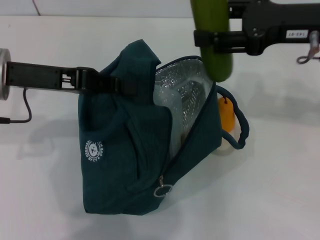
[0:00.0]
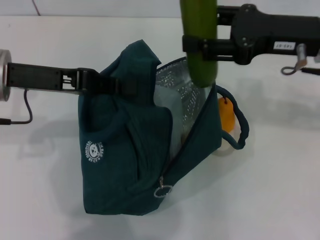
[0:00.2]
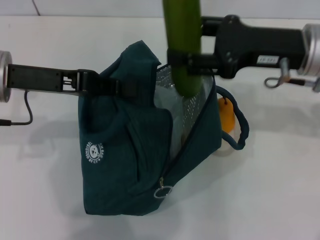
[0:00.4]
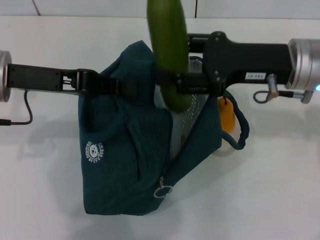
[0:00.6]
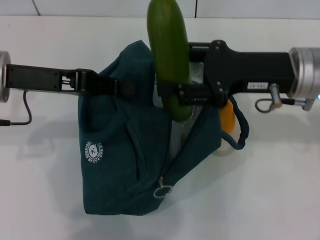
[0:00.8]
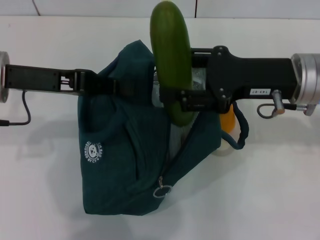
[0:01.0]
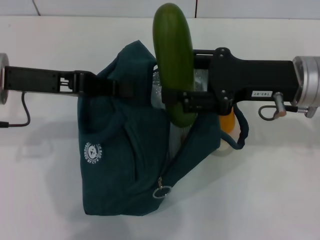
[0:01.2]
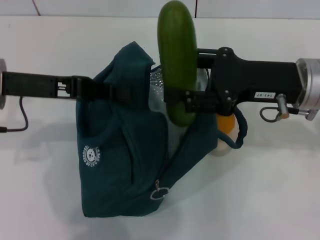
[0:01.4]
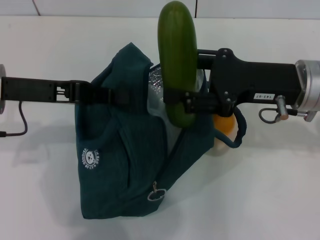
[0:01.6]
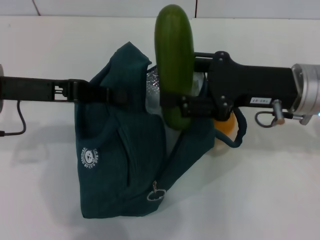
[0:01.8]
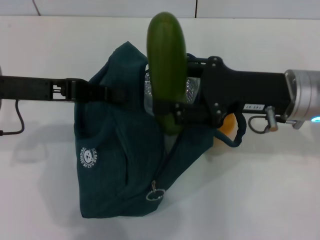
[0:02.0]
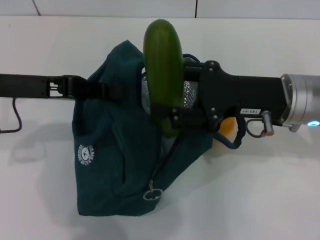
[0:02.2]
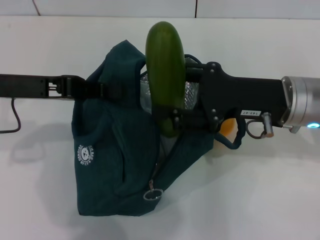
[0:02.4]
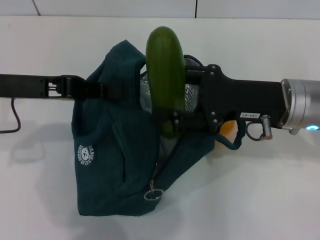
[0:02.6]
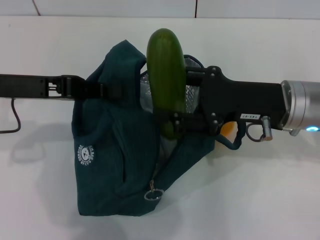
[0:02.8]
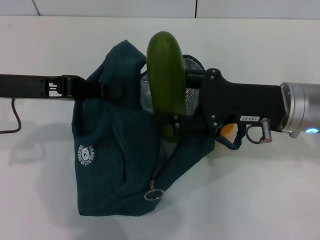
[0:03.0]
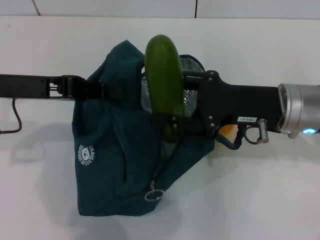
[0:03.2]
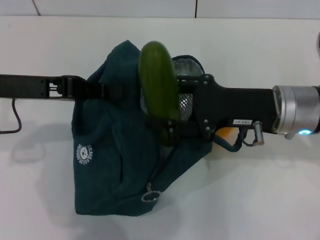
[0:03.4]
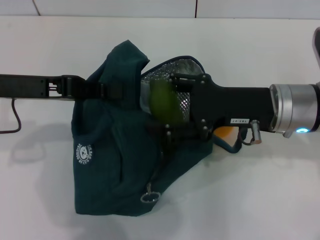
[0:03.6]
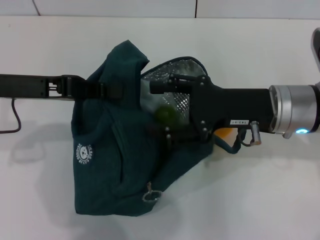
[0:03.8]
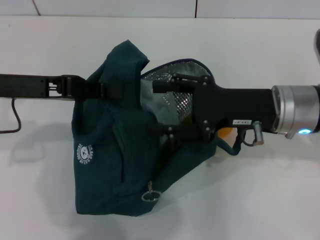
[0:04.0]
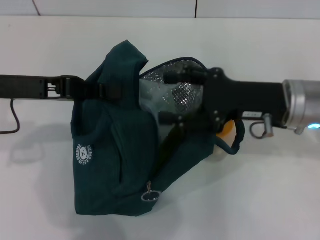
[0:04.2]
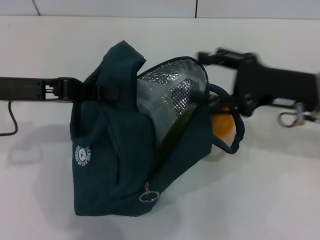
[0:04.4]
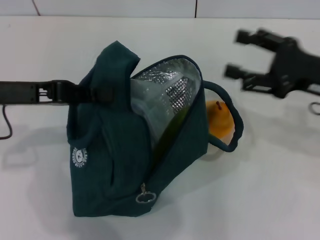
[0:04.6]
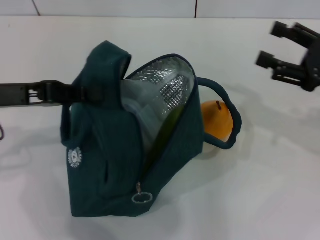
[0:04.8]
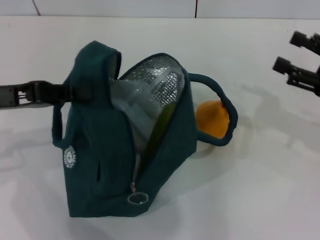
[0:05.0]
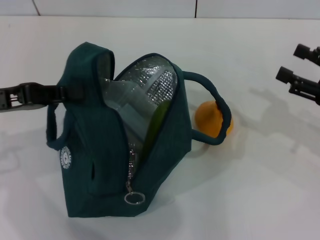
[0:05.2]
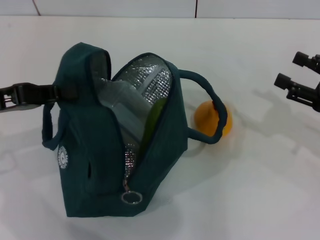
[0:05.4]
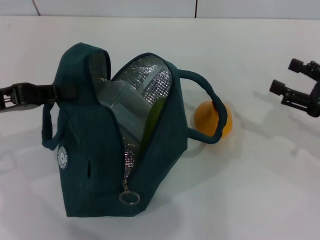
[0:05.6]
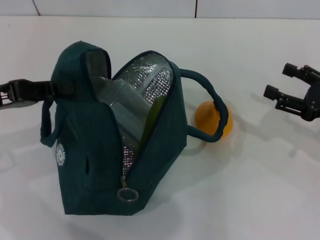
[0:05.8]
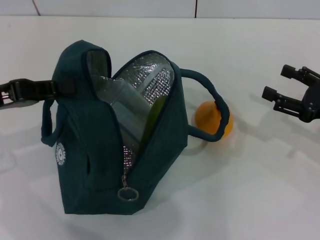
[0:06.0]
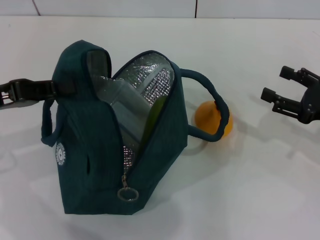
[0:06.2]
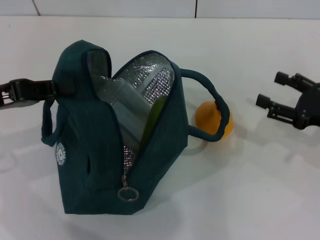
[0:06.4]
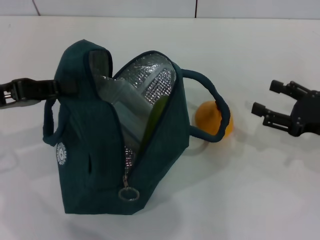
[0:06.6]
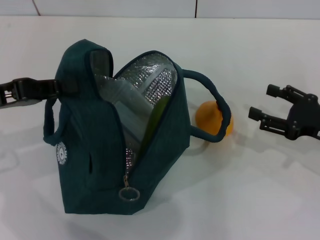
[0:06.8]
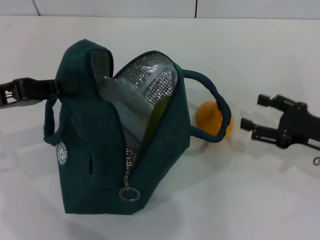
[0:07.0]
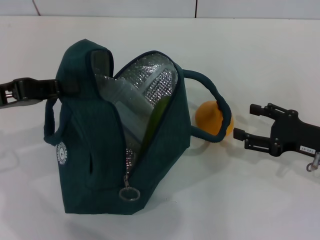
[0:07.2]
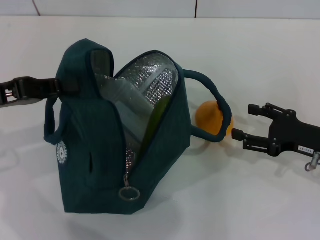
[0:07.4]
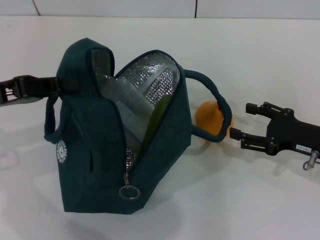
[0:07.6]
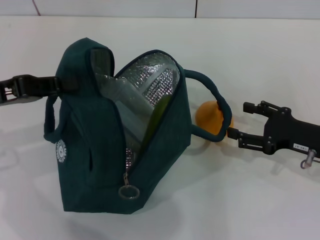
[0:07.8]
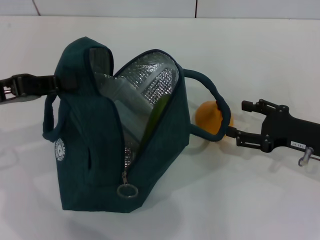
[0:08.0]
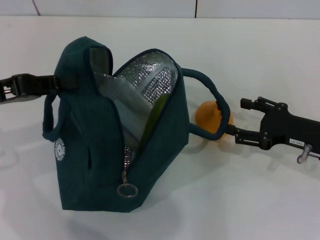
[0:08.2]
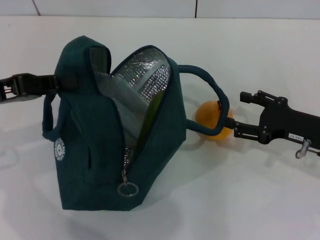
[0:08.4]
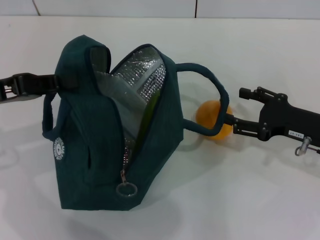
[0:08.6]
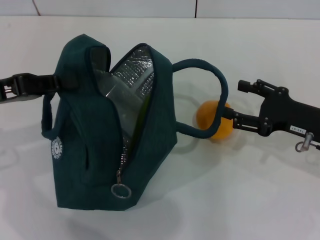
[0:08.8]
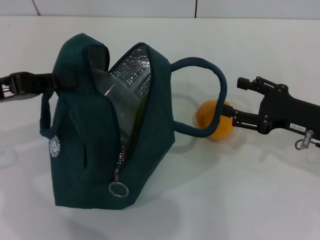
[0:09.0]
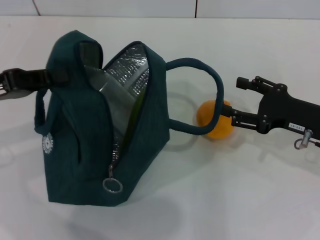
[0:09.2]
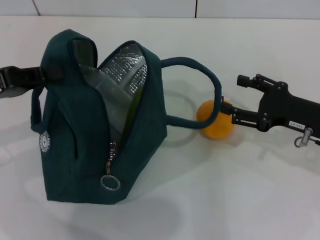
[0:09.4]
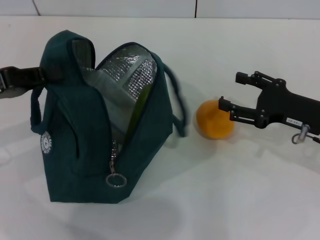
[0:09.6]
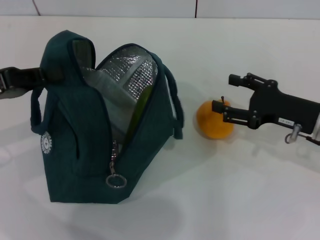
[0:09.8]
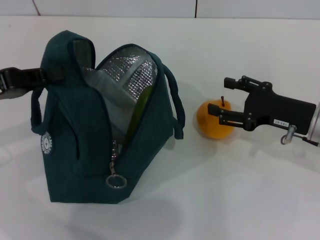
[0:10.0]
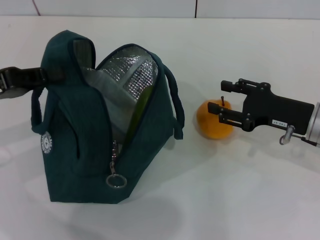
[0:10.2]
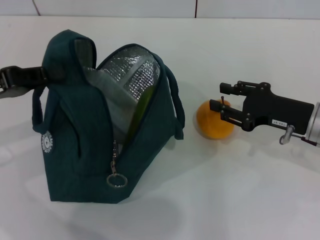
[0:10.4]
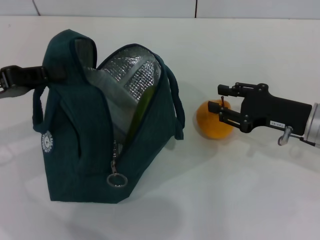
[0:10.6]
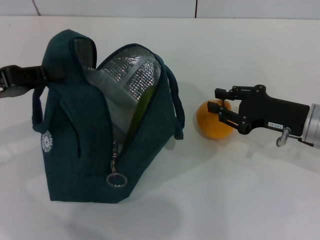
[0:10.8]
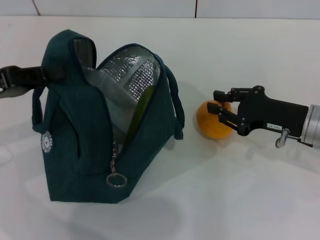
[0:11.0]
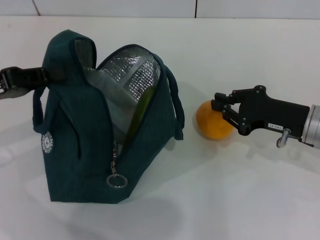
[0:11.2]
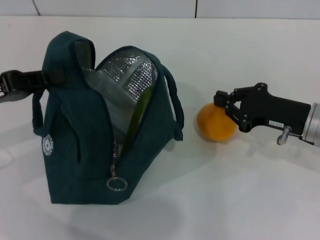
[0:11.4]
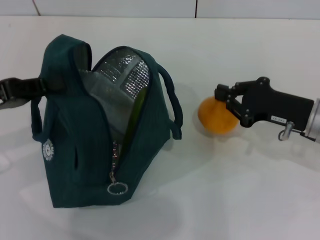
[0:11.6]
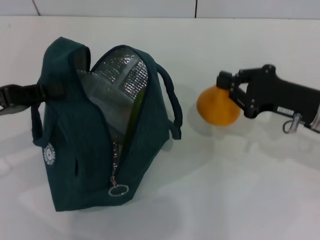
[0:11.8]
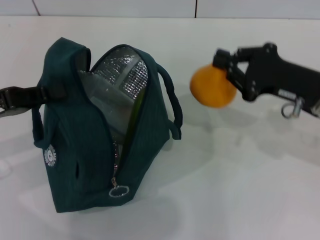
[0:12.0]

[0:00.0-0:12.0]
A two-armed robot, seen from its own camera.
Step, 0:00.0 to 0:04.4: Put the cucumber into the lunch bag with your right hand.
Step, 0:04.6 to 0:11.0: Grab the pear with your right hand.
0:00.0 to 0:01.6: The right gripper is displaced downward by approximately 5 cm.
0:01.6 to 0:04.4: The grippers stay close to where they were, moving slightly.
0:04.4 to 0:06.0: The right gripper travels to the right and downward by approximately 10 cm. The left gripper heads to the left, covering some 5 cm.
0:06.0 to 0:09.0: The grippers stay close to where they were, moving slightly.
0:09.0 to 0:10.4: The grippers make only small movements.
0:10.4 to 0:12.0: The right gripper travels upward by some 5 cm, and closes.

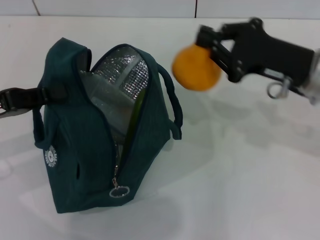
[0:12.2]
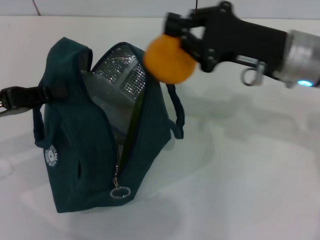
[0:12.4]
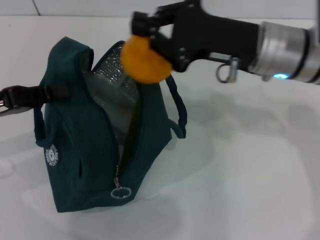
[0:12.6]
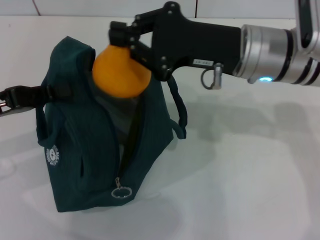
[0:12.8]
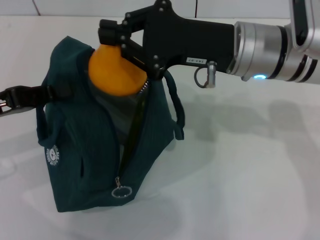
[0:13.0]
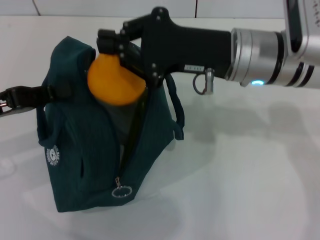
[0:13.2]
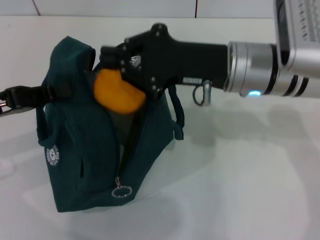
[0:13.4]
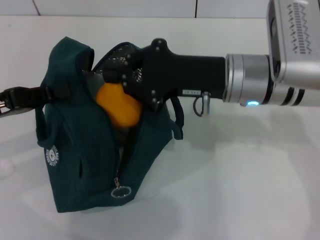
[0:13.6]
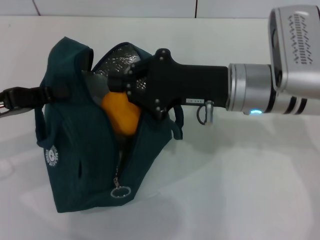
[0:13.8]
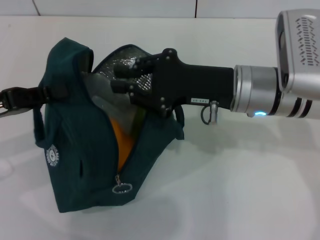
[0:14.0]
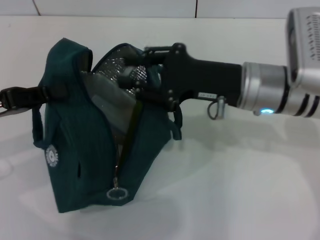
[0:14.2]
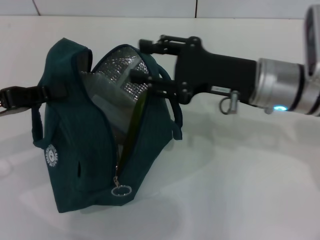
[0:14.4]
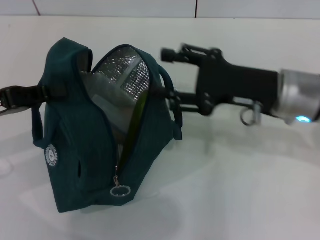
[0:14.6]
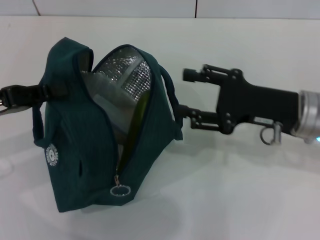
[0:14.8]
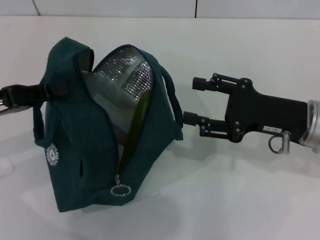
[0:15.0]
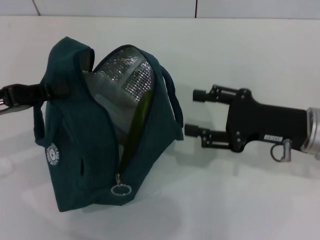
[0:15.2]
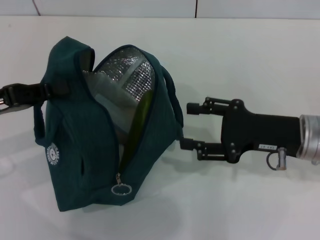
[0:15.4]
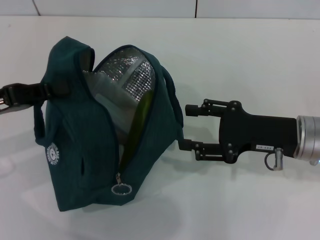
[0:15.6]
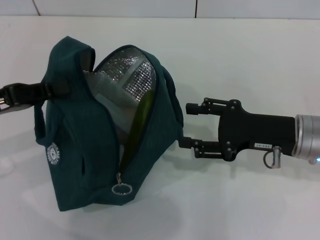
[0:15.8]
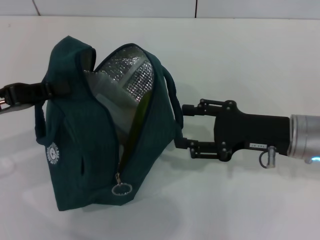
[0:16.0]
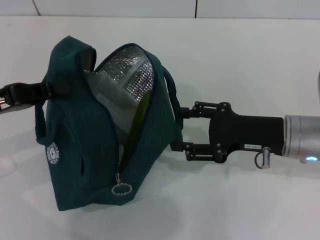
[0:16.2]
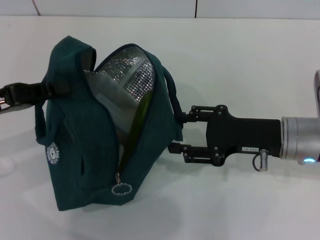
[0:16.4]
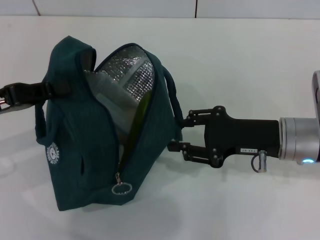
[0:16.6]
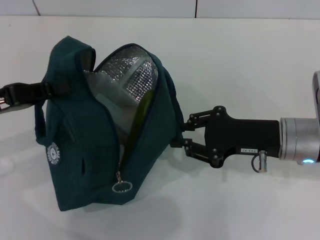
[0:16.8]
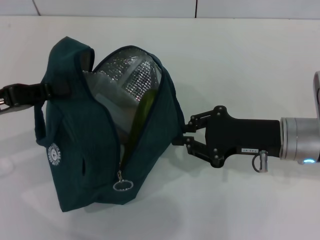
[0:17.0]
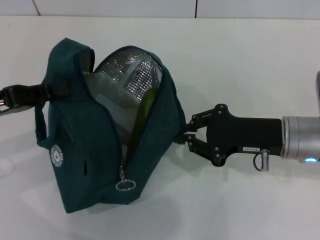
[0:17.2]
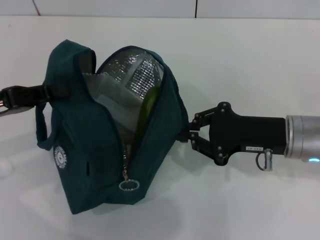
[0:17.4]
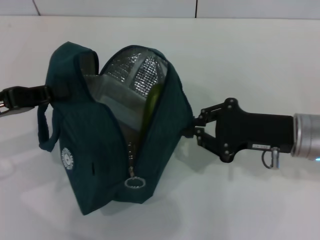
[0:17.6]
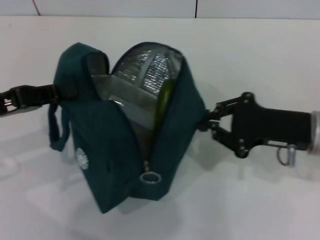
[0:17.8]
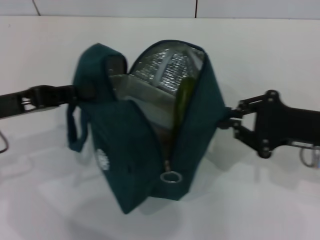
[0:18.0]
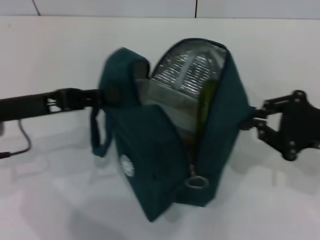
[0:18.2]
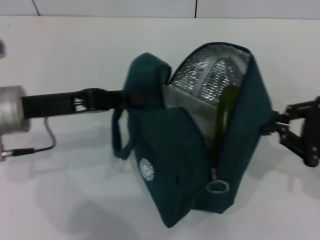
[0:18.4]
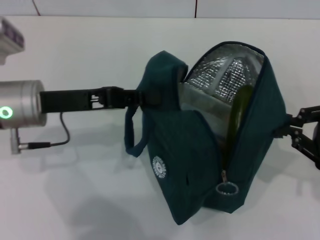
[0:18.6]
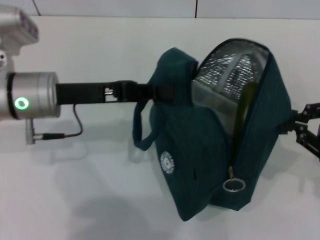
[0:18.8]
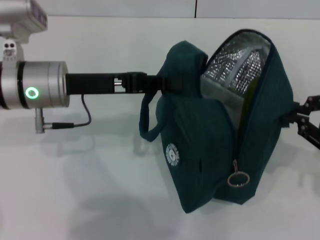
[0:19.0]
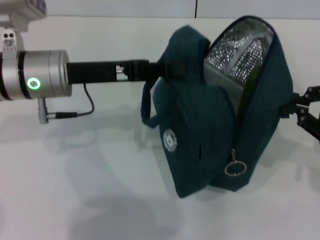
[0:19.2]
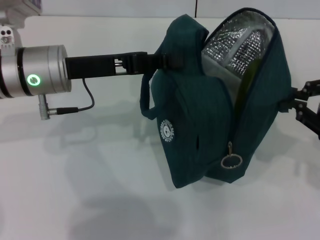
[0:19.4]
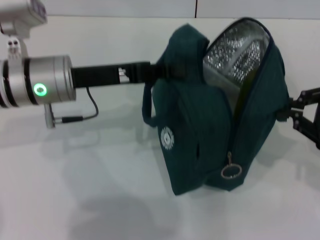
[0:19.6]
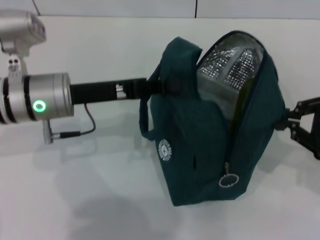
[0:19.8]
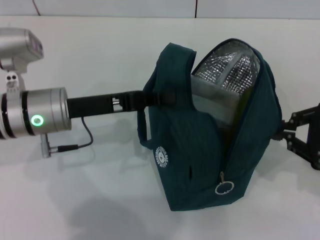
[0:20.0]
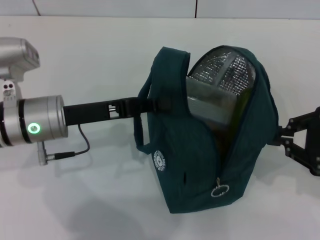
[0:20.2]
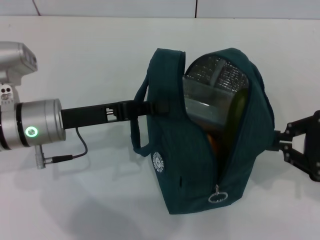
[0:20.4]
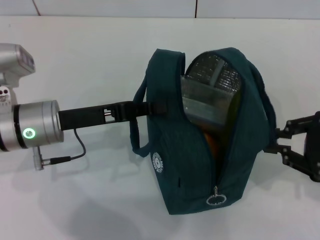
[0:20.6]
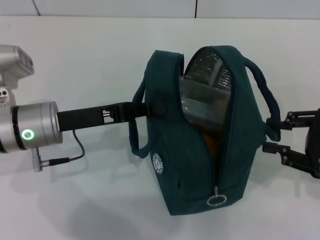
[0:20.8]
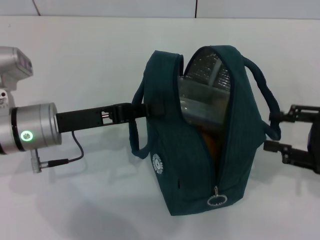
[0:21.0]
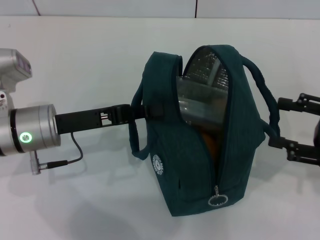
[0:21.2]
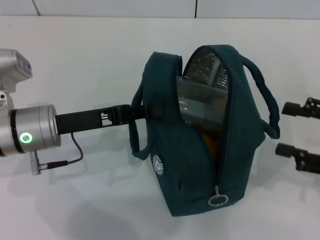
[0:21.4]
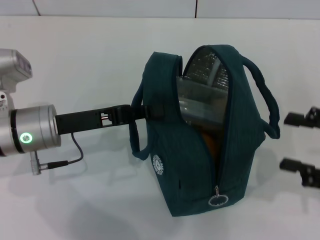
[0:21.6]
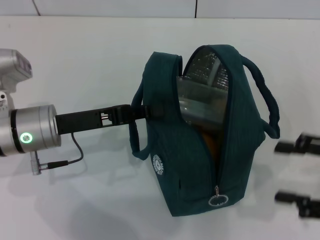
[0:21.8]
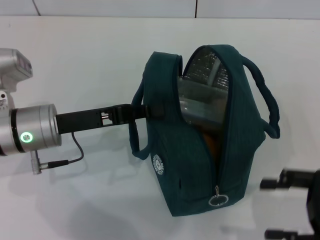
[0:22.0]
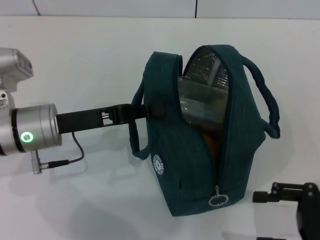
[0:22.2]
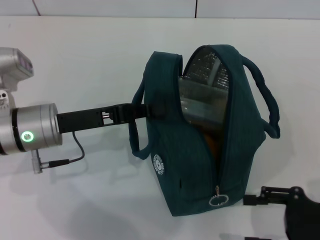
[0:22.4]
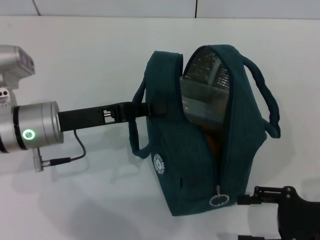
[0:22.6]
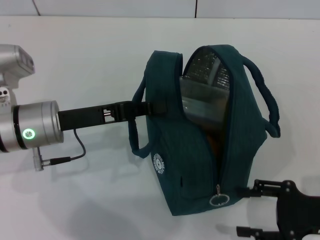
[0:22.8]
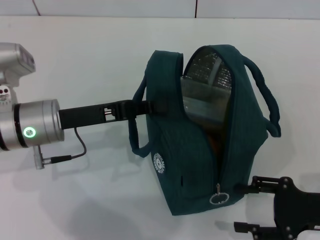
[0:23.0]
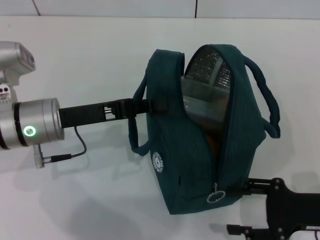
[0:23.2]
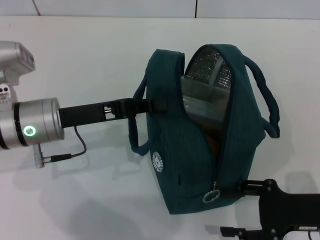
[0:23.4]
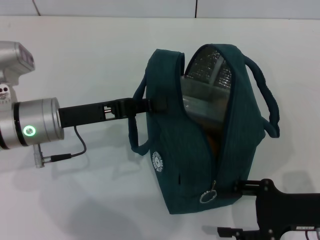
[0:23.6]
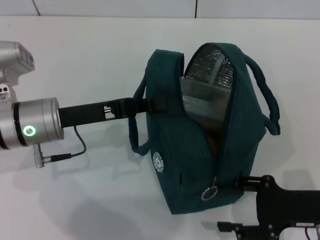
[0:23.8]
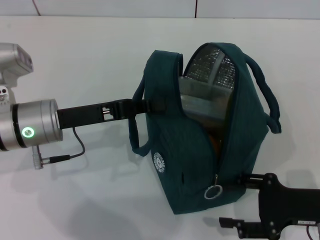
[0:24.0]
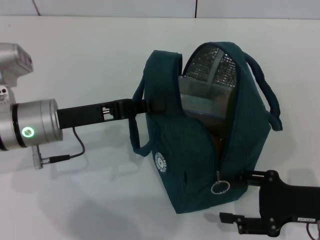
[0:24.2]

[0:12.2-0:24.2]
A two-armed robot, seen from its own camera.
Step, 0:14.2 to 0:20.8: Hold the lunch bag with your right hand.
0:12.2 to 0:13.8: The right gripper is displaced to the left by roughly 10 cm.
0:13.8 to 0:15.2: The right gripper is displaced to the right by roughly 10 cm, and opens.
0:15.2 to 0:16.6: The grippers stay close to where they were, moving slightly.
0:16.6 to 0:18.2: The left gripper travels to the right by some 5 cm, while the right gripper heads to the right, covering some 10 cm, and closes its fingers.
0:18.2 to 0:19.8: The left gripper travels to the right by approximately 5 cm.
0:19.8 to 0:21.2: The right gripper opens.
0:21.2 to 0:22.6: The right gripper travels downward by approximately 5 cm.
0:22.6 to 0:24.2: The grippers make only small movements.
